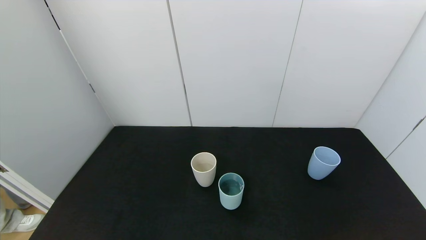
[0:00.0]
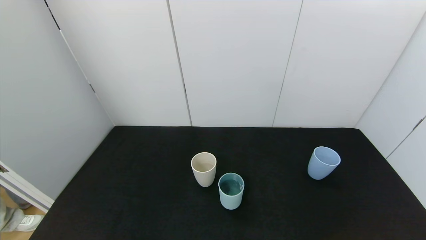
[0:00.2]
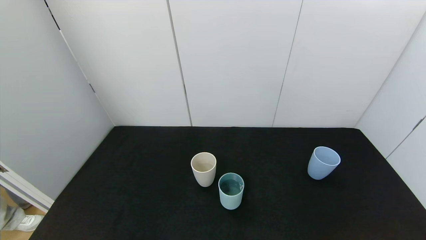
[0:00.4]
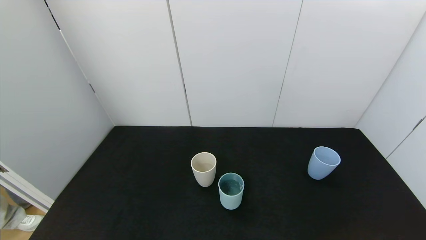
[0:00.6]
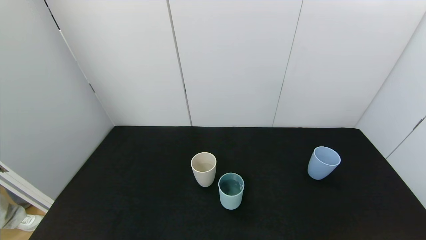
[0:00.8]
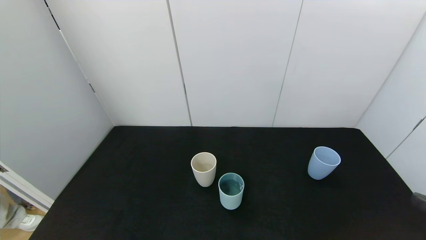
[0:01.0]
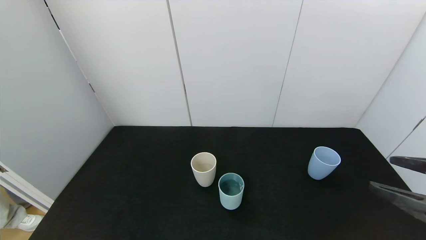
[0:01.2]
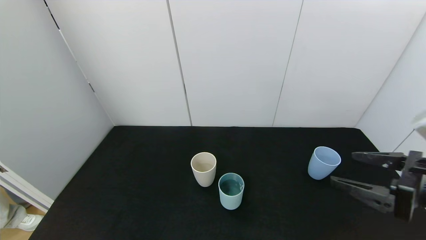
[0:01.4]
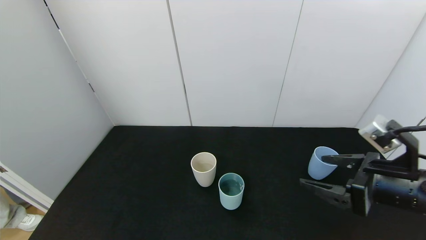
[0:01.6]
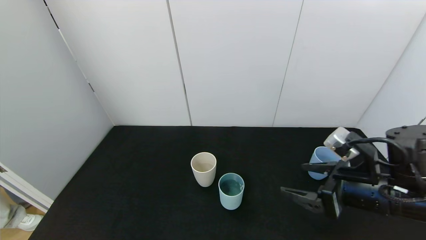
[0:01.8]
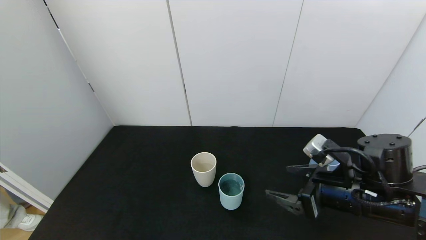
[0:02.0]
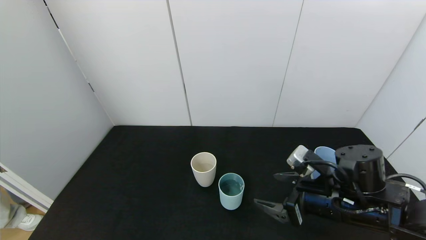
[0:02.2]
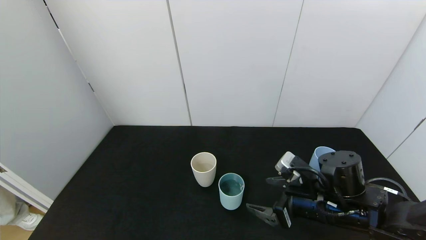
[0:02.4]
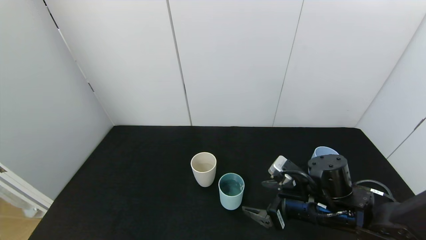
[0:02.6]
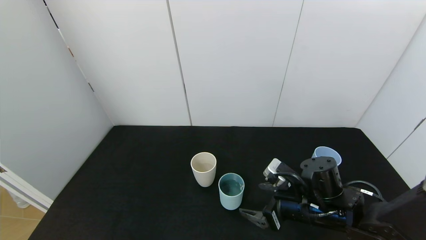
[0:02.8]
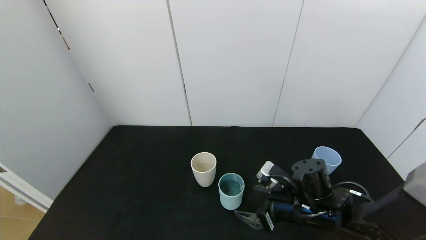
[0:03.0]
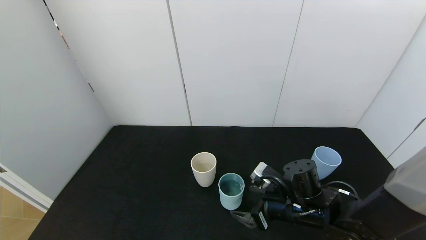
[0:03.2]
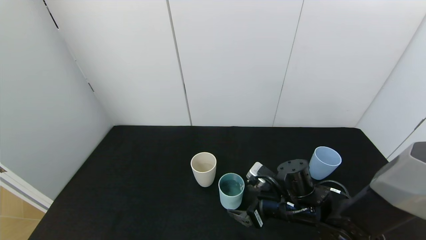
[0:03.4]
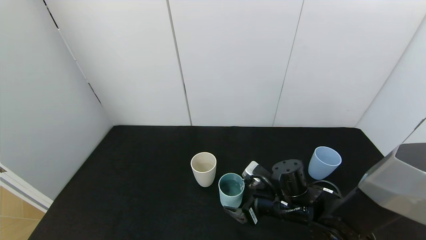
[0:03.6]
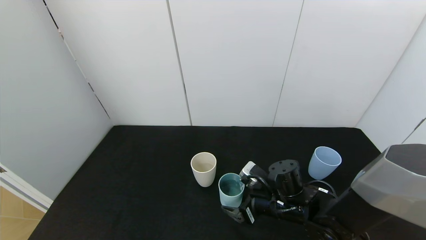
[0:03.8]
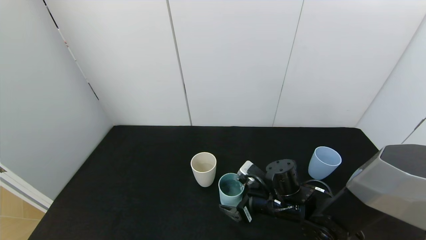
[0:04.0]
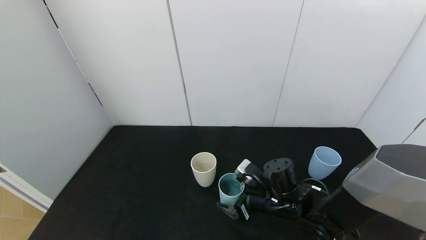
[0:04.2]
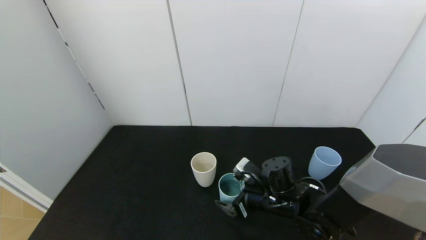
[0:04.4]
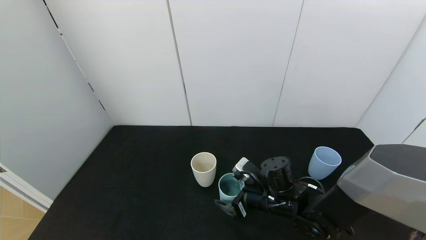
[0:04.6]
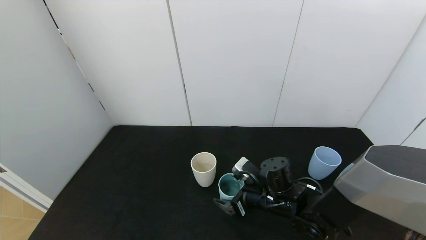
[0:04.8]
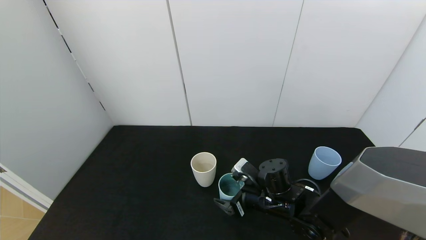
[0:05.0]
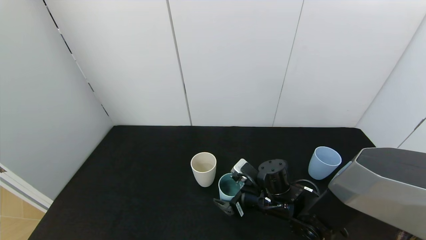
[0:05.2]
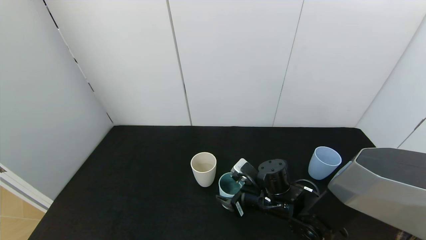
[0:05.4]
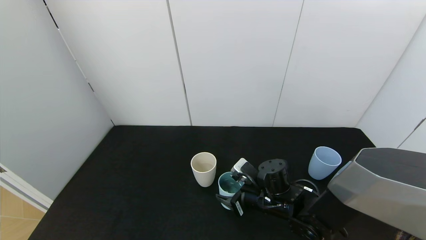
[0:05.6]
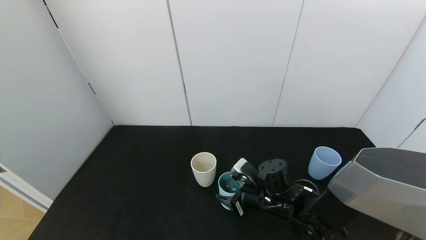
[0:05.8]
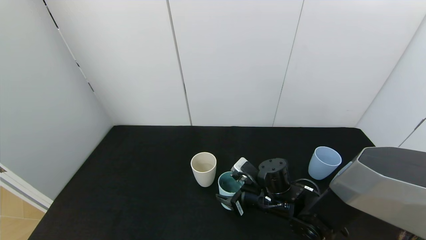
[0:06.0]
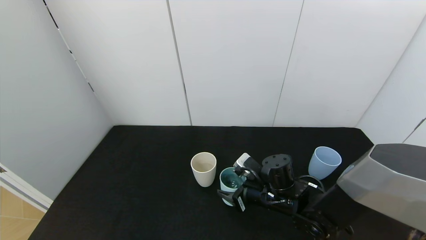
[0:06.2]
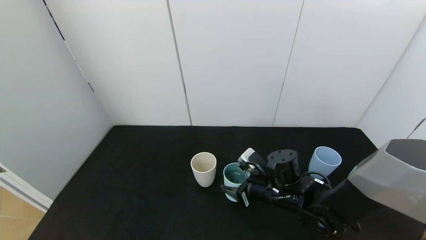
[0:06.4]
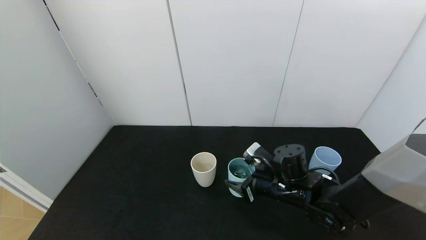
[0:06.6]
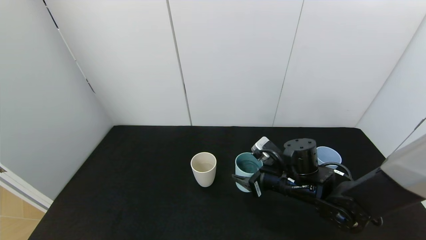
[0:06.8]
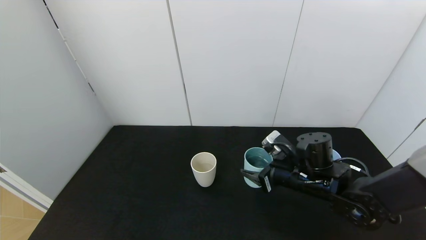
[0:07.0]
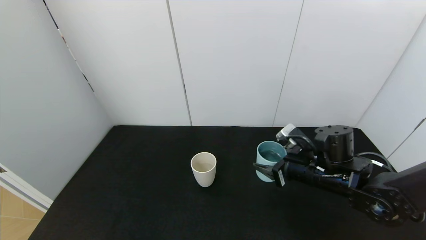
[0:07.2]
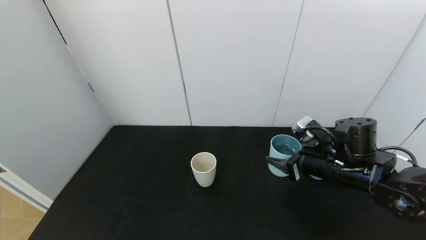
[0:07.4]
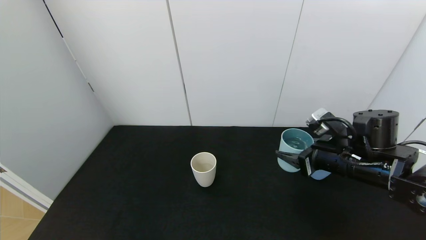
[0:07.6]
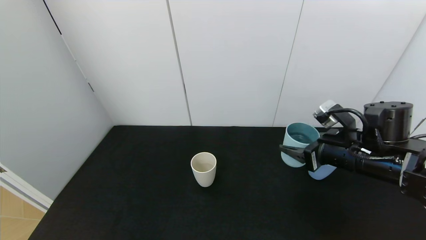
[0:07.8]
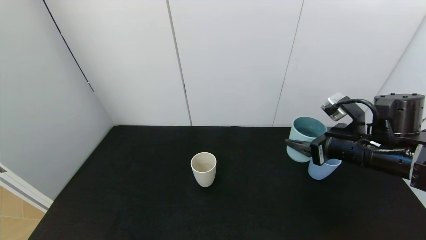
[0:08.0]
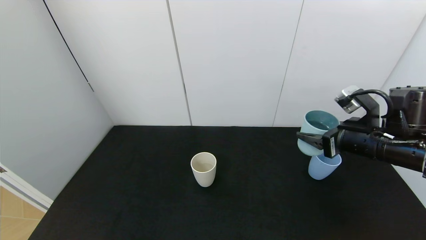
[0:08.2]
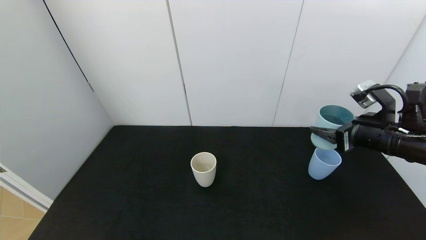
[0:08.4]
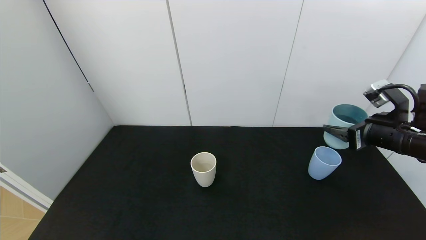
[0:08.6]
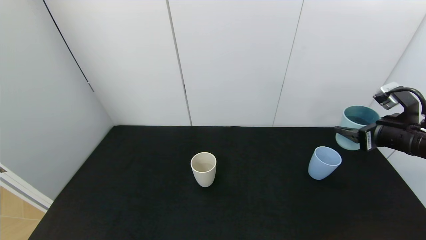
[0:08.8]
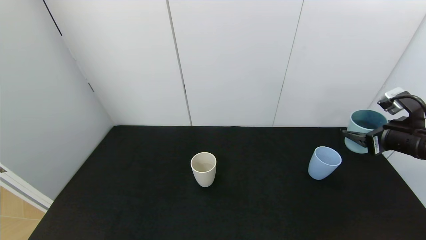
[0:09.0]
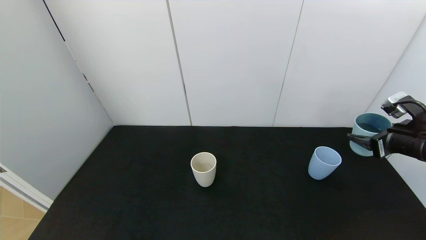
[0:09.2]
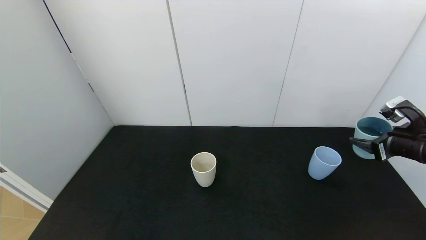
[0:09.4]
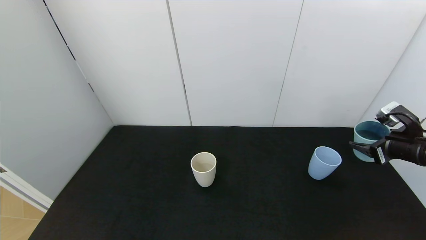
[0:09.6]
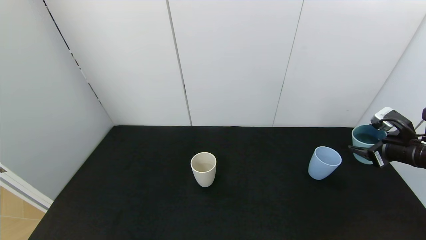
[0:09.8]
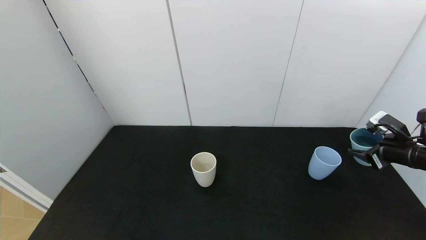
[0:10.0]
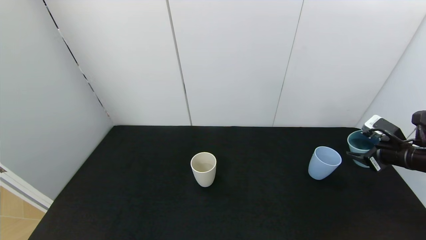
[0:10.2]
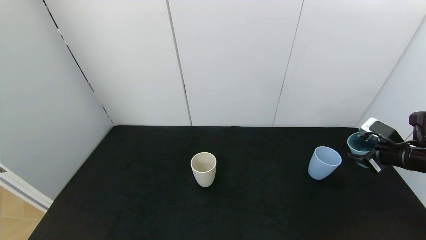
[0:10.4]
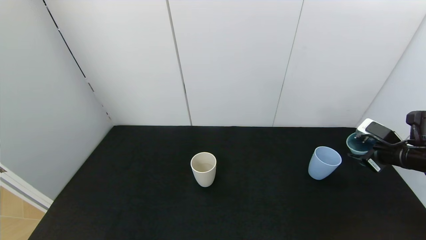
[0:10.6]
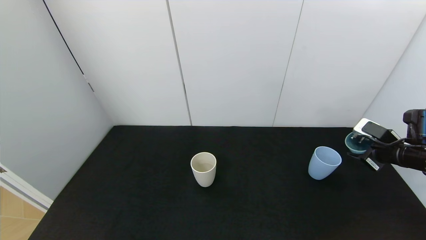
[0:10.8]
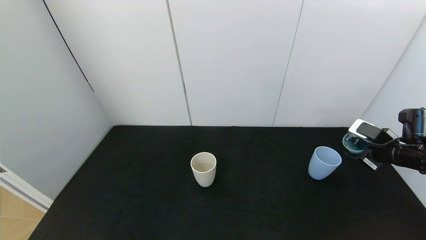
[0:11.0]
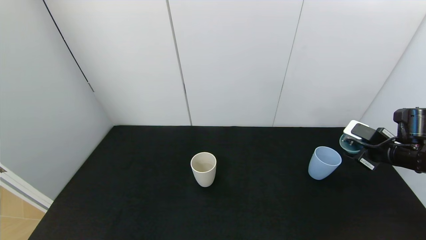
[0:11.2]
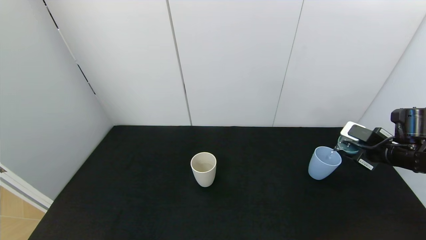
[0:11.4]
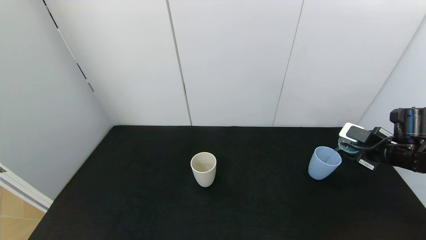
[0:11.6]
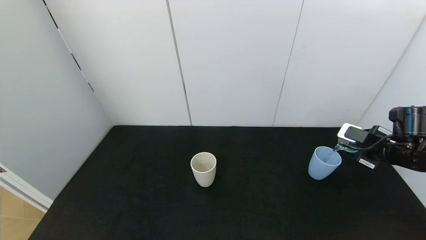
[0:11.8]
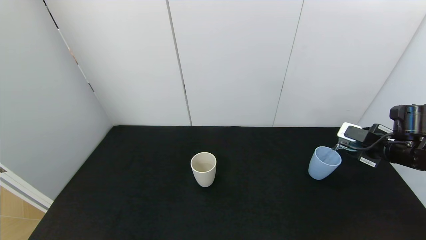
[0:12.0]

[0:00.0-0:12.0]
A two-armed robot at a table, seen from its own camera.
Task of the whole recording: use the gripper to pour the water into the other two cups on black table.
Step, 0:00.0 to 0:05.6: Grasp the green cup with the right gripper.
0:00.0 to 0:01.6: The right gripper travels forward and upward by roughly 25 cm.
0:01.6 to 0:03.0: The right gripper goes about 20 cm downward, to the left and forward.
0:03.0 to 0:04.4: The right gripper shifts by roughly 5 cm.
0:04.4 to 0:06.0: The right gripper closes up.
0:06.0 to 0:07.6: The right gripper travels to the right and upward by some 20 cm.
0:07.6 to 0:09.0: The right gripper heads to the right, covering approximately 15 cm.
0:09.0 to 0:10.4: The right gripper heads downward, covering roughly 5 cm.

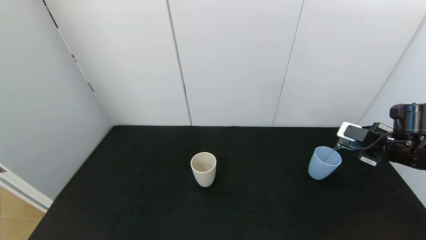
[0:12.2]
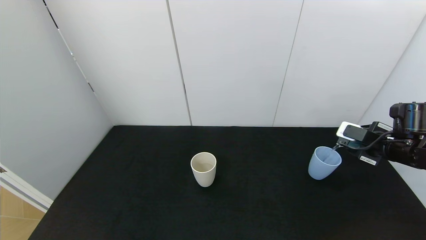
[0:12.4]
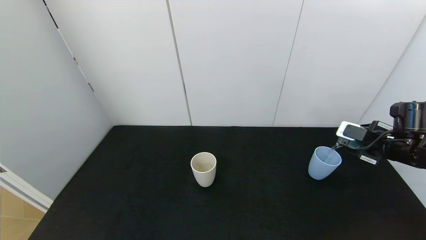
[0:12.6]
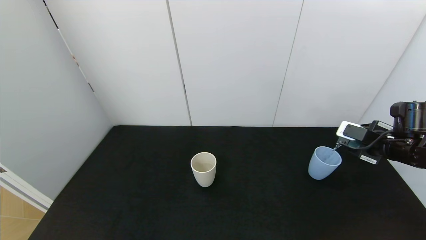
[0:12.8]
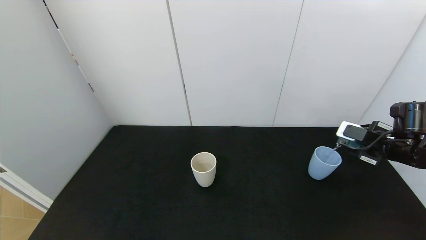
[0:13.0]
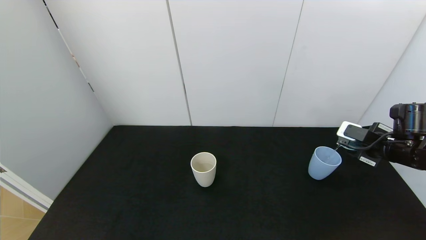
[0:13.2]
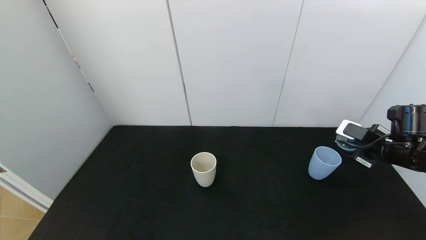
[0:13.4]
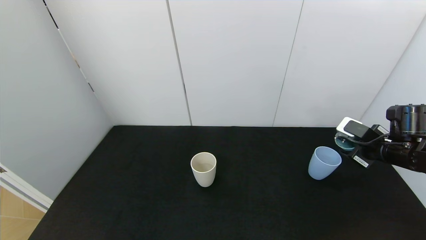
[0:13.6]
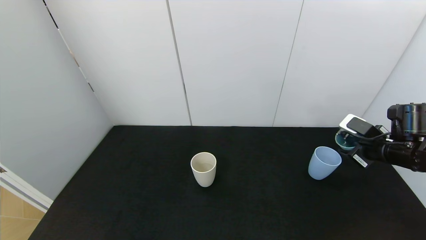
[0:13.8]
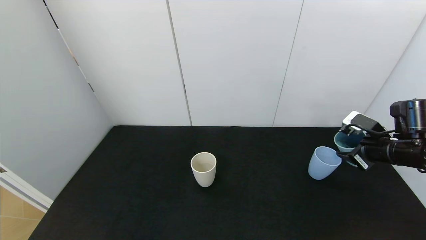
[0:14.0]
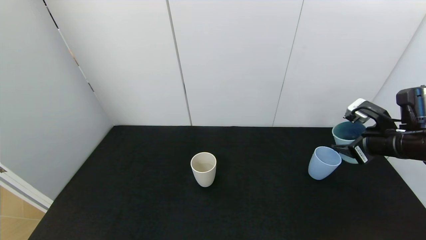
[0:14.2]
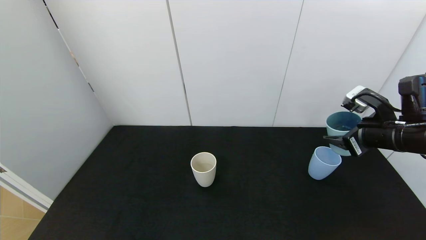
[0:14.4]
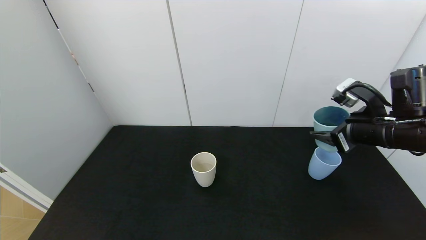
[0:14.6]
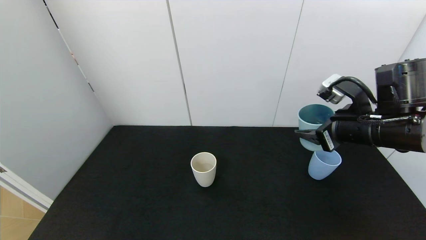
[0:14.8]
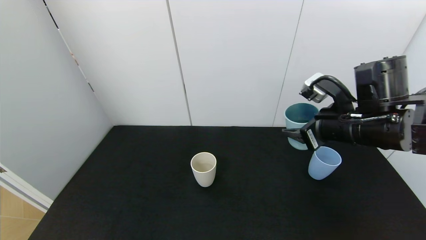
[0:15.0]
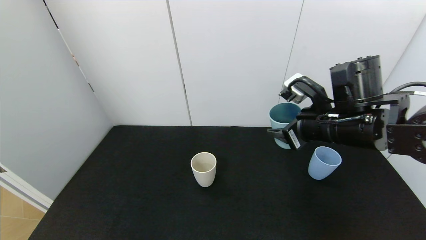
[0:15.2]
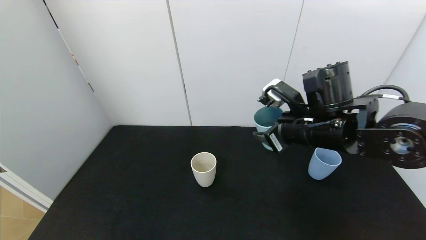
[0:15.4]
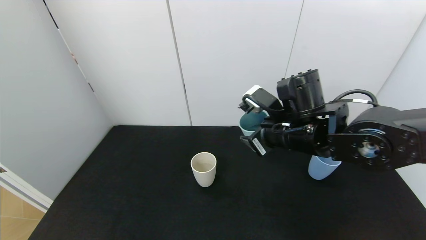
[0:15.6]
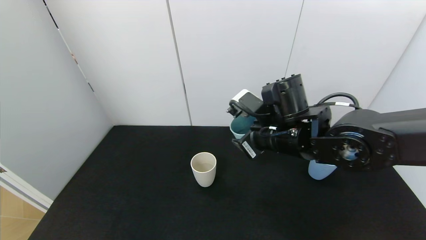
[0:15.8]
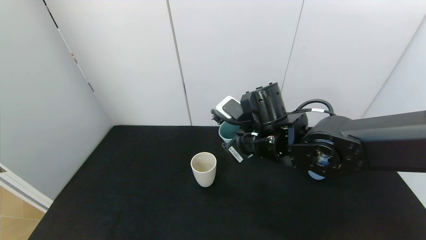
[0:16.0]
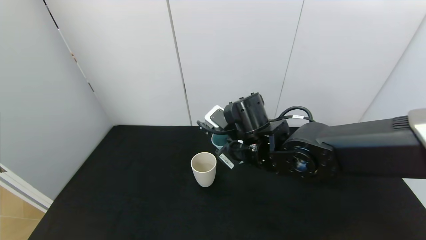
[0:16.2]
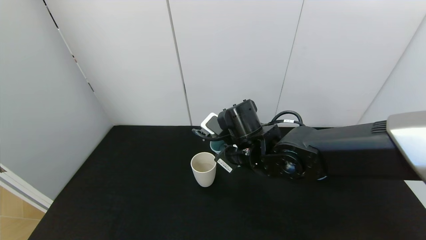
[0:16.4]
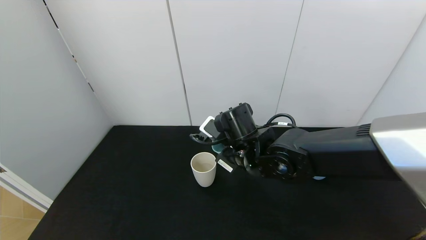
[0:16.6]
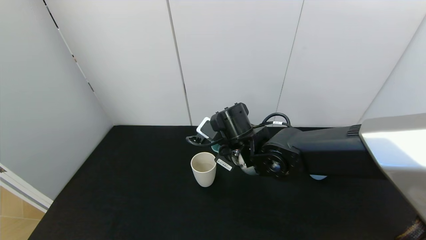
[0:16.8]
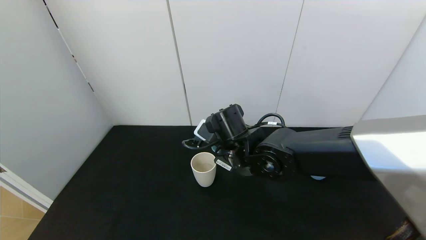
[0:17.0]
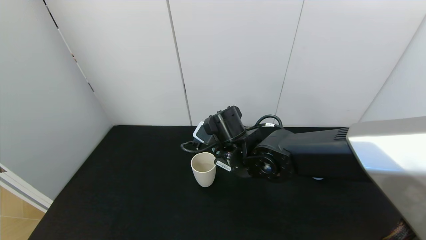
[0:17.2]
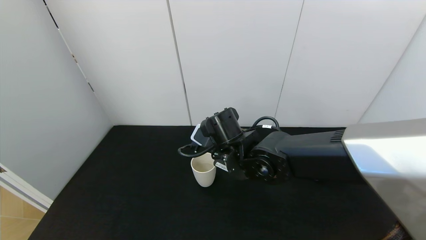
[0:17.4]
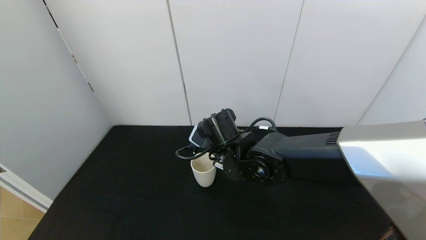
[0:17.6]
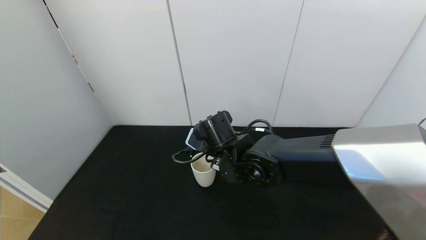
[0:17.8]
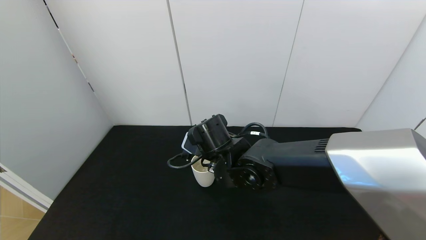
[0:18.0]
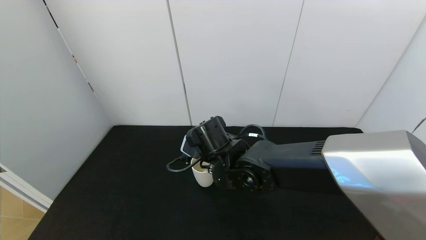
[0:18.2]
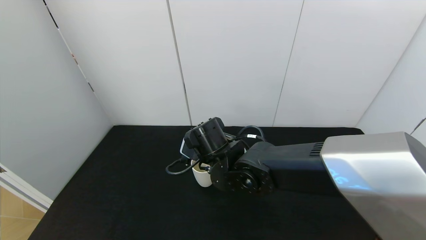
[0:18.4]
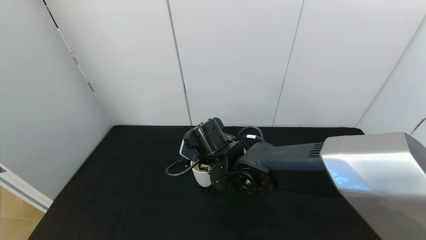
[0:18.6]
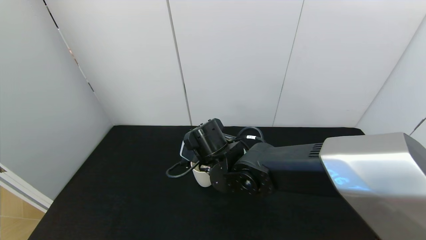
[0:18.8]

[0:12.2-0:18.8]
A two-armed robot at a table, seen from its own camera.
Task of the whole recording: use the gripper to pour the water into the other two cups on black table.
Step, 0:12.2 to 0:14.2: Pour water from green cup to blue cup with the right gripper.
0:12.2 to 0:13.8: There are only small adjustments of the grippers.
0:13.8 to 0:15.4: The right gripper heads to the left, covering roughly 20 cm.
0:15.4 to 0:17.2: The right gripper goes about 15 cm to the left and downward.
0:17.2 to 0:18.8: The grippers stay close to where they were, moving slightly.
